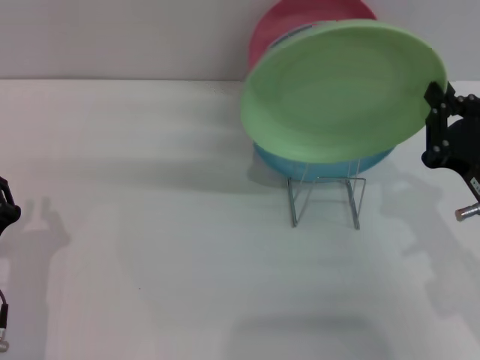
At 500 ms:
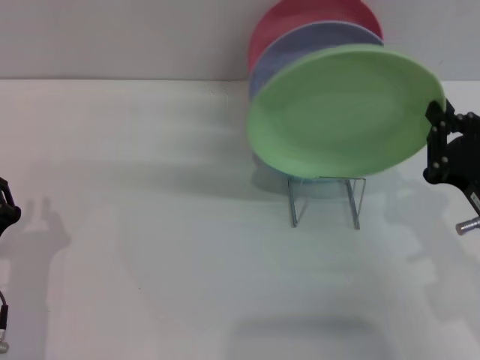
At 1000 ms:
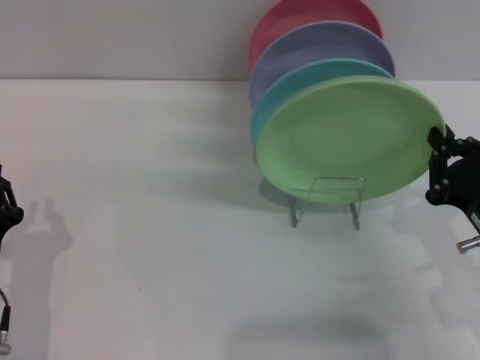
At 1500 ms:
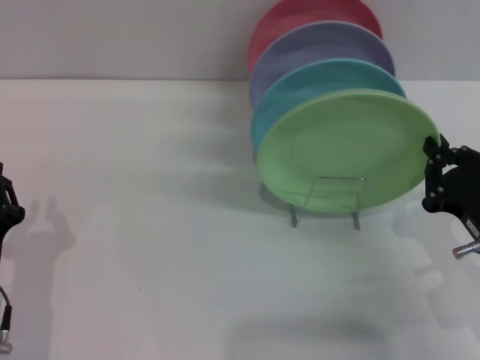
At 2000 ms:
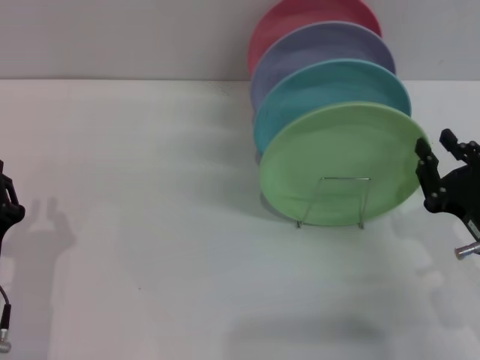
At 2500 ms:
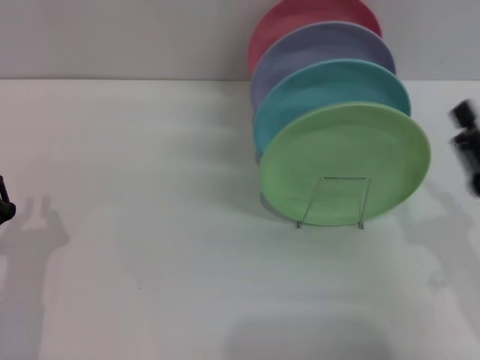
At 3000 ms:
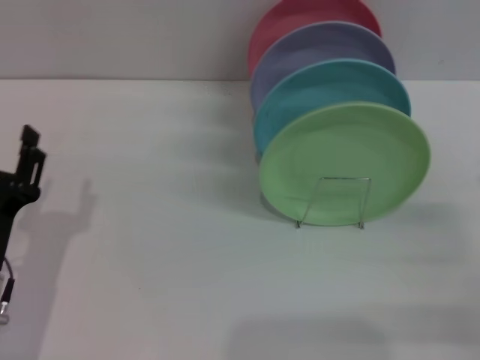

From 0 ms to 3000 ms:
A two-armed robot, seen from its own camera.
Task of the whole recording: Grip the plate with one hand, pass it to the other, then set it on the shelf.
From 0 ms to 1500 ms: There are only small adjustments of the grippers.
From 1500 ms to 3000 ms: The right gripper travels to the right by roughly 10 cm, and opens. Meanwhile the left gripper opens.

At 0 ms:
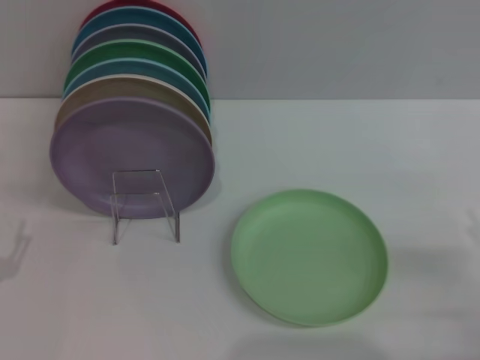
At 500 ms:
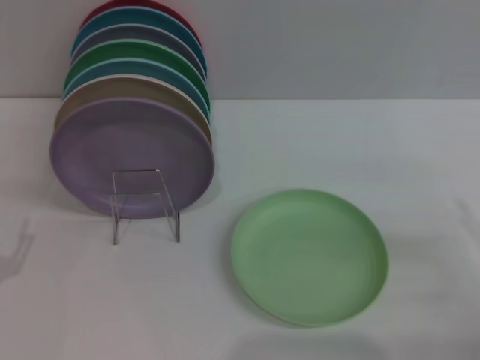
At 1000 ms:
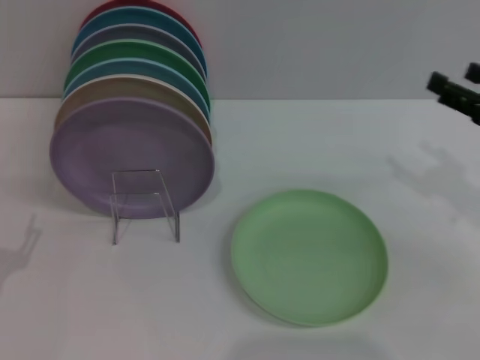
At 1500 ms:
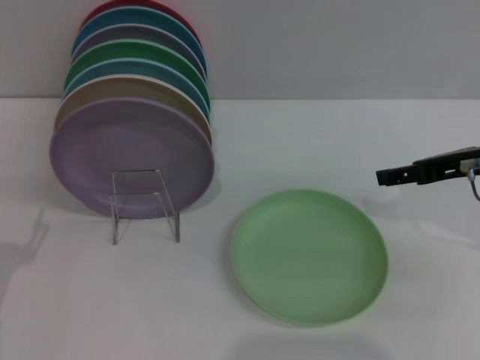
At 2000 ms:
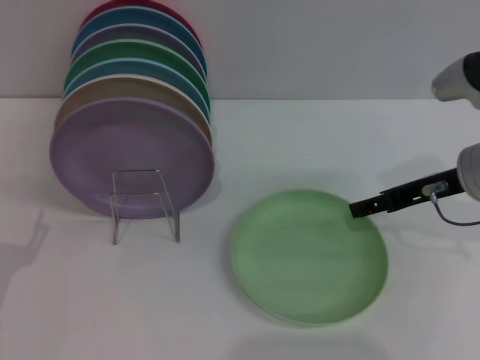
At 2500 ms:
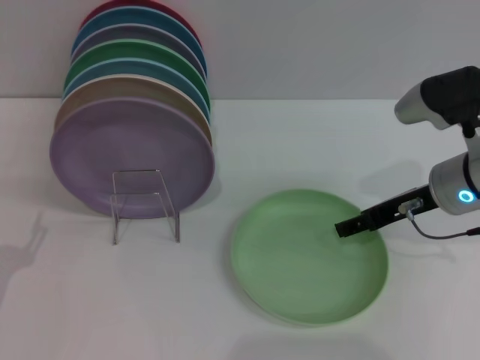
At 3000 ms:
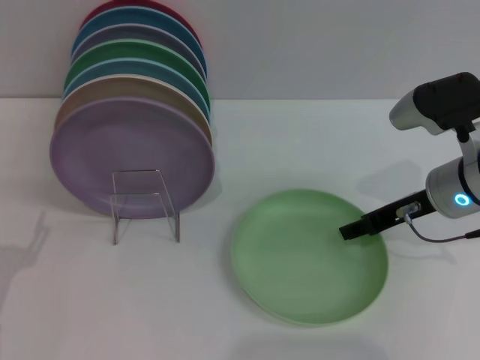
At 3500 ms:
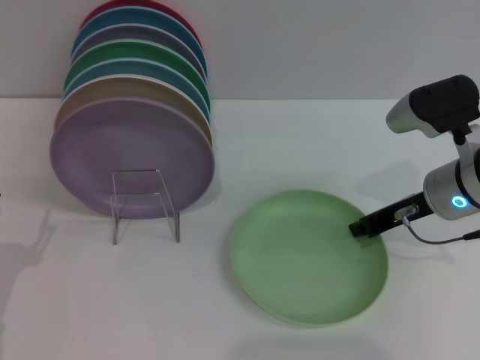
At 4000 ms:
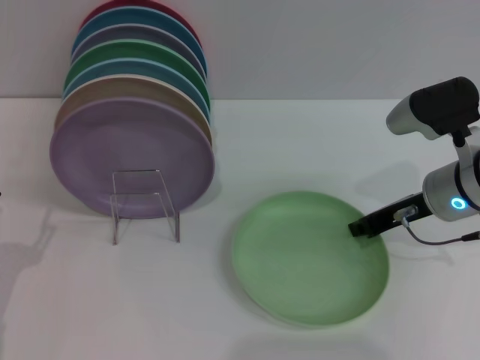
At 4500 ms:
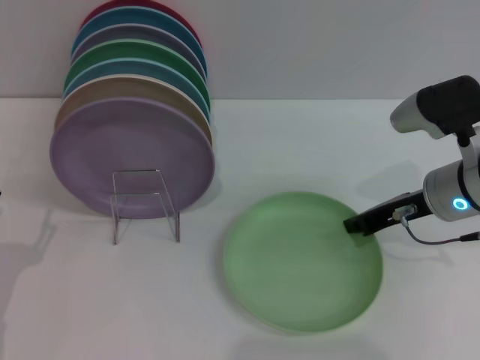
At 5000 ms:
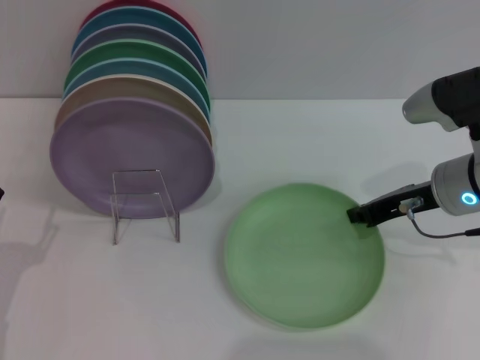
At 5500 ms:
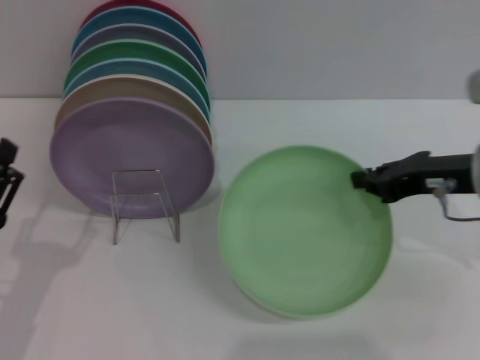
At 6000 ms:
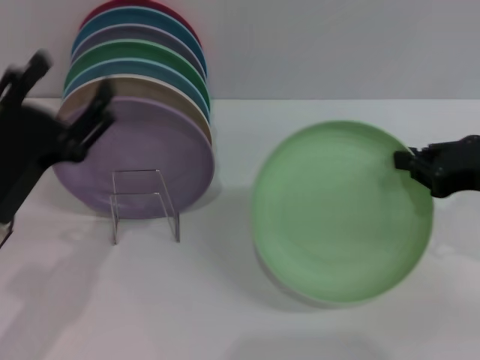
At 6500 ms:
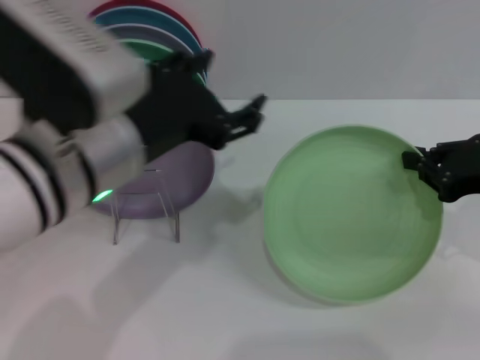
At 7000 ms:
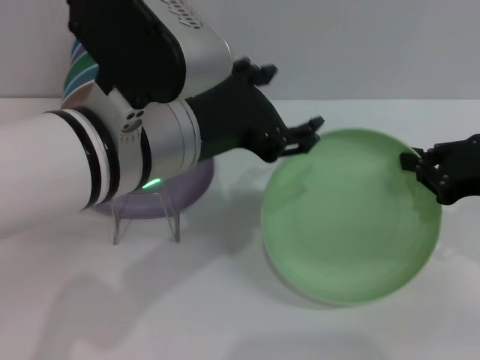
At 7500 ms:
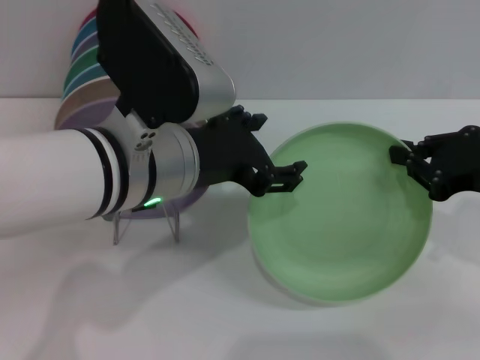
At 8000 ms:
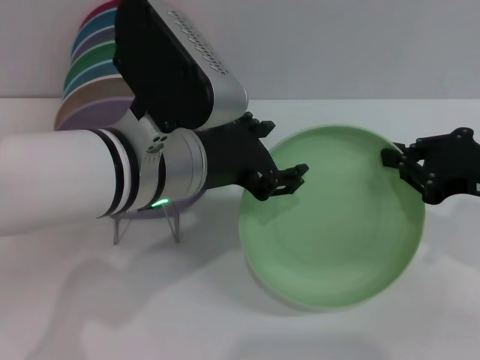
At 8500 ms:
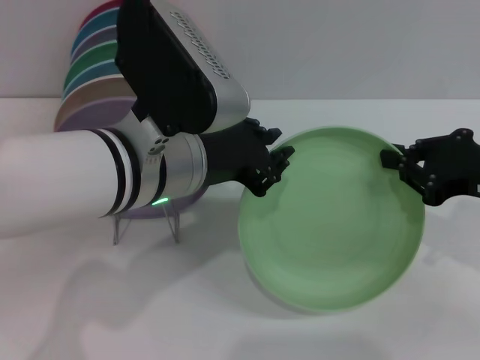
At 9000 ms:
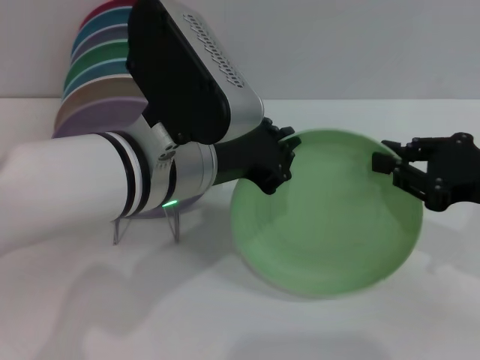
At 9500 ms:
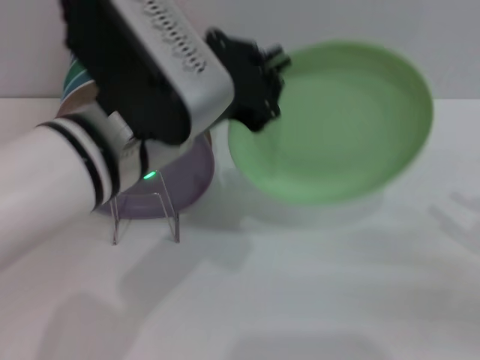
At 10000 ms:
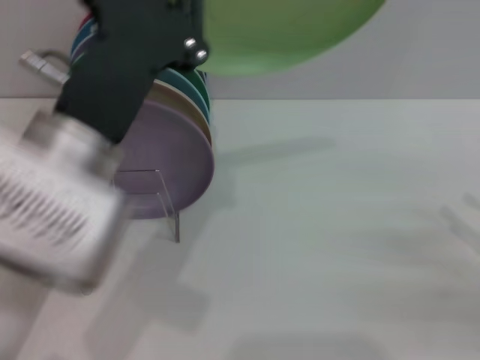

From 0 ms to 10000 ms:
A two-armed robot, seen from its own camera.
Task of the whole recording: Grip the plate with one hand, pass it to the other, then set it on the shelf.
Step, from 0 ms to 5500 ms: Pick up the plate with the right gripper.
Step, from 6000 ms to 9000 ms: Pass the plate from the right gripper to the left gripper.
From 0 ms to 2000 ms: The right gripper goes approximately 20 cm forward, to the left and upward.
From 2000 ms to 4000 ms: The right gripper closes.
From 4000 ms to 6000 ms: The right gripper travels backward, to the right and upward by about 10 cm. The left gripper goes approximately 10 cm upward and to the right.
From 6000 ms to 8000 ms: The left gripper moves to the right and upward, about 15 cm.
From 8000 ms to 10000 ms: The right gripper travels to the right, downward and backward by roughly 15 cm, and opens up; the left gripper travels backward by about 5 cm, and closes up.

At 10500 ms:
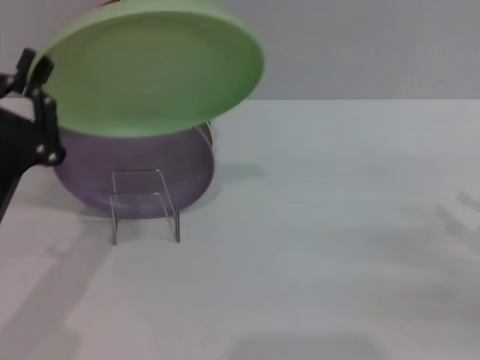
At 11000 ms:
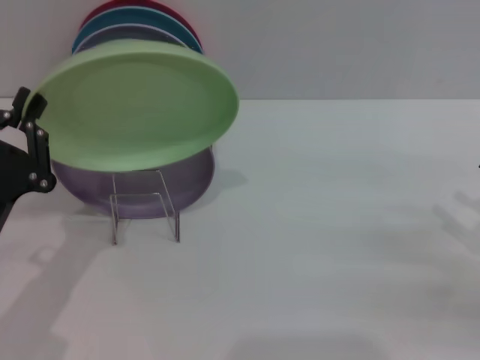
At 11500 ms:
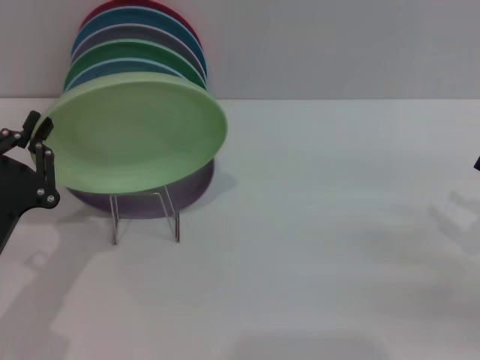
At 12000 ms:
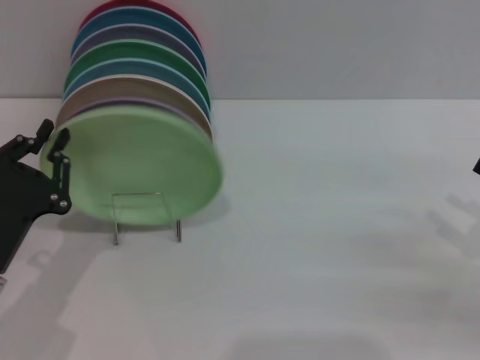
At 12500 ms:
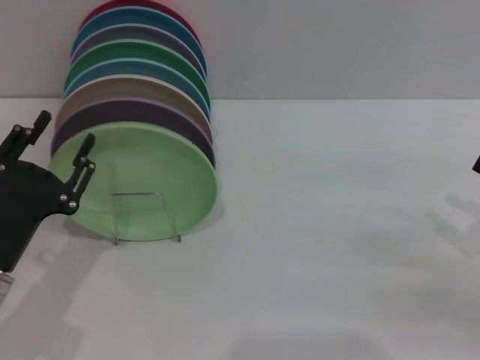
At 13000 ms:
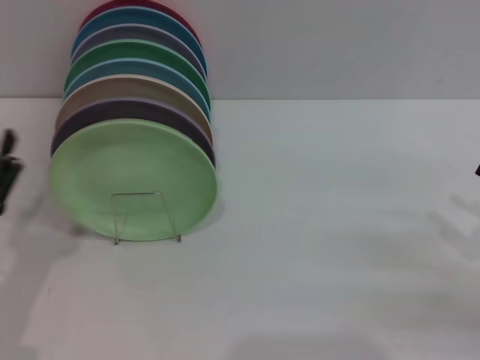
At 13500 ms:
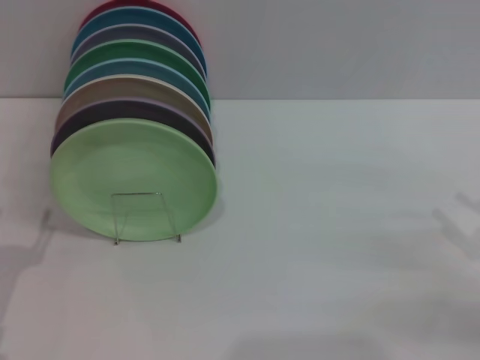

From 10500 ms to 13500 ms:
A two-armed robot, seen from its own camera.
Task of the whole recording: Grip the plate with one hand, pass it to the other, then set it on the shelf.
Step, from 10500 ms to 12500 ms: Place the plate on the shelf with the left gripper.
From 10500 ms to 12000 ms: The left gripper shifts by roughly 5 cm.
From 12000 ms to 13500 ms: The left gripper ends up about 5 cm from where it was, and opens its fingers.

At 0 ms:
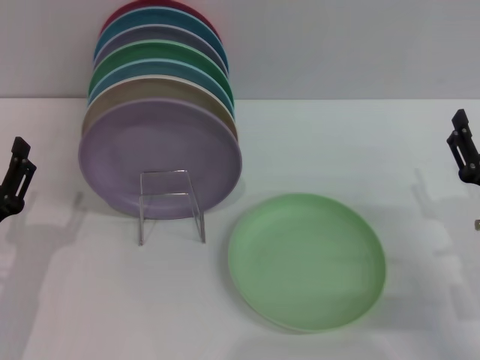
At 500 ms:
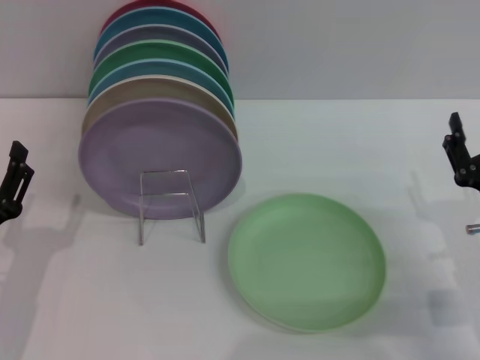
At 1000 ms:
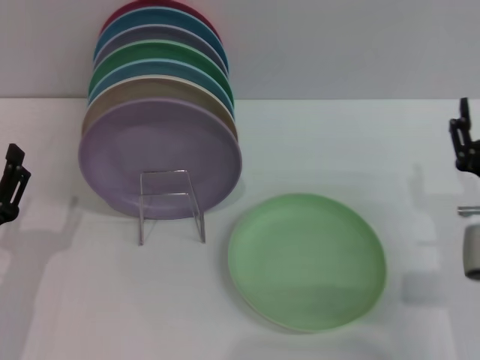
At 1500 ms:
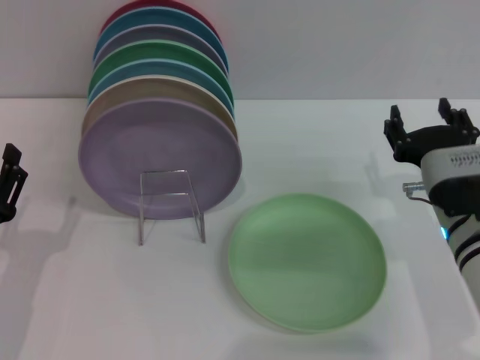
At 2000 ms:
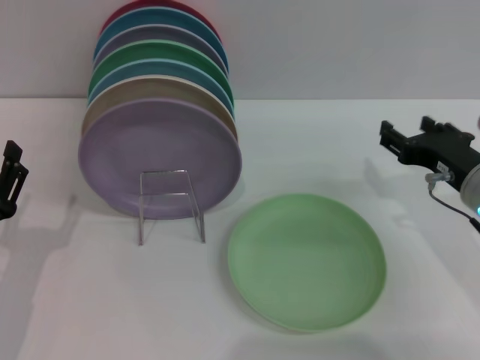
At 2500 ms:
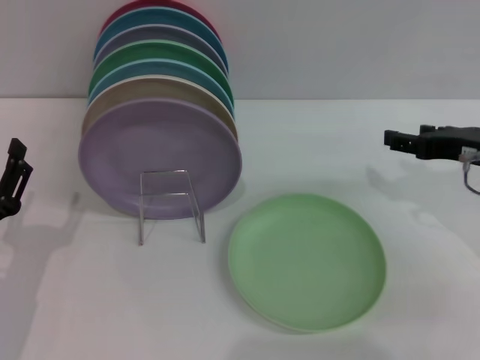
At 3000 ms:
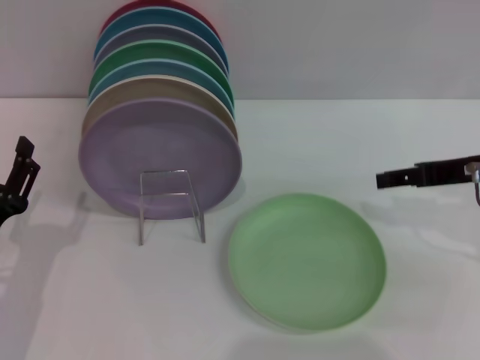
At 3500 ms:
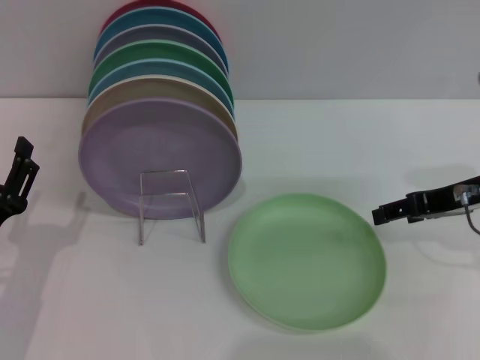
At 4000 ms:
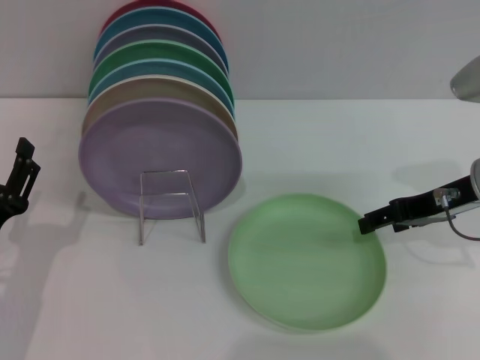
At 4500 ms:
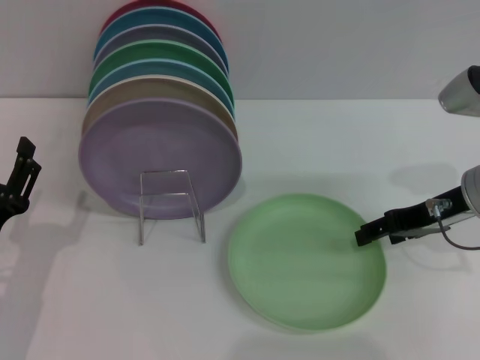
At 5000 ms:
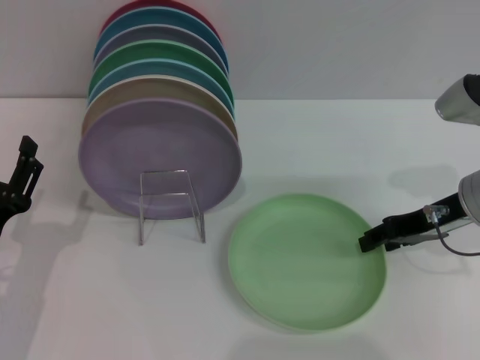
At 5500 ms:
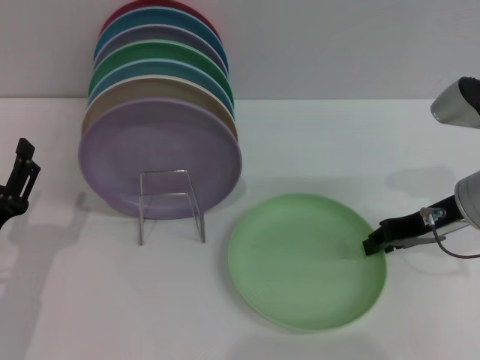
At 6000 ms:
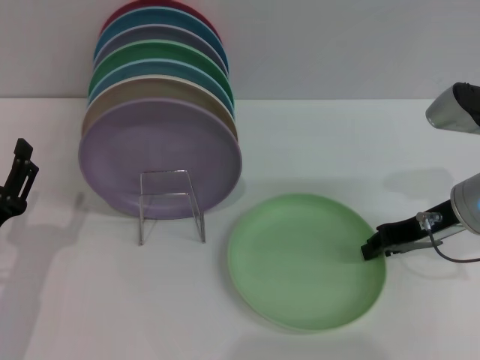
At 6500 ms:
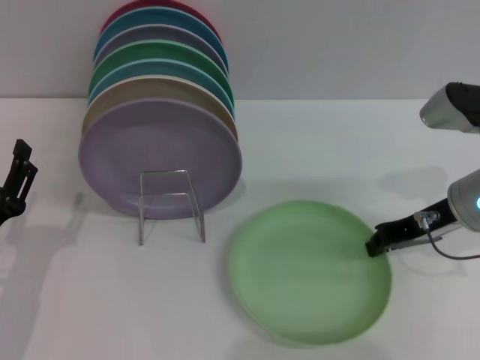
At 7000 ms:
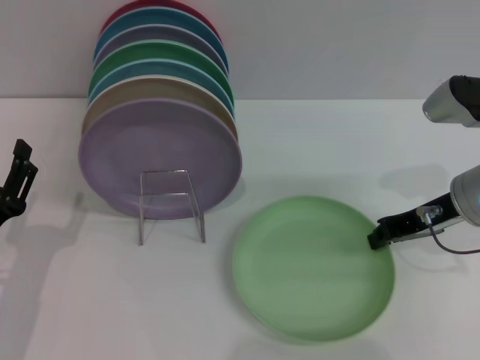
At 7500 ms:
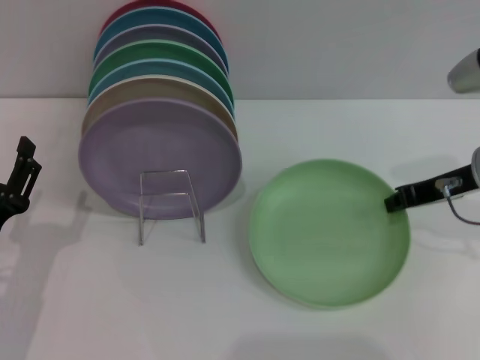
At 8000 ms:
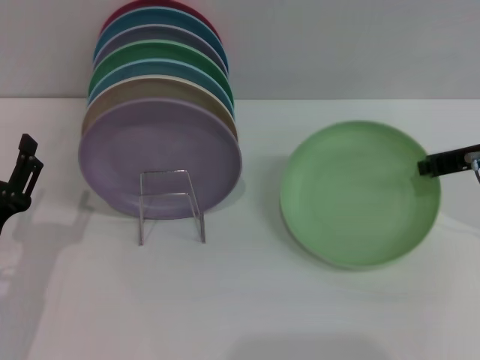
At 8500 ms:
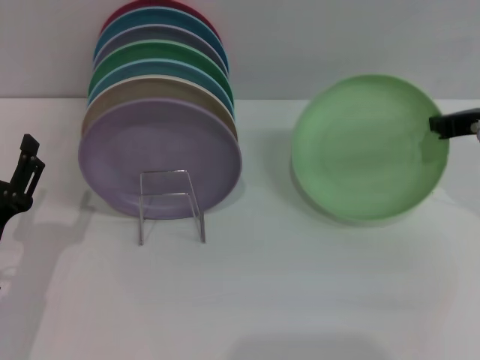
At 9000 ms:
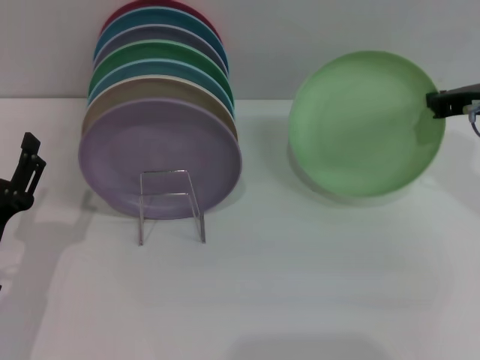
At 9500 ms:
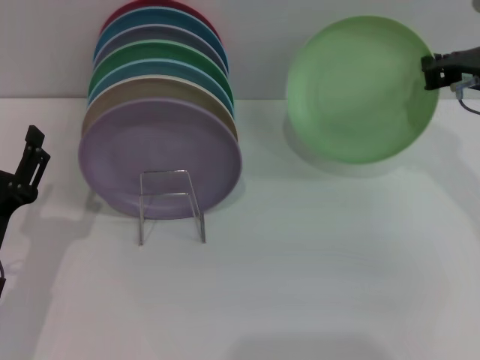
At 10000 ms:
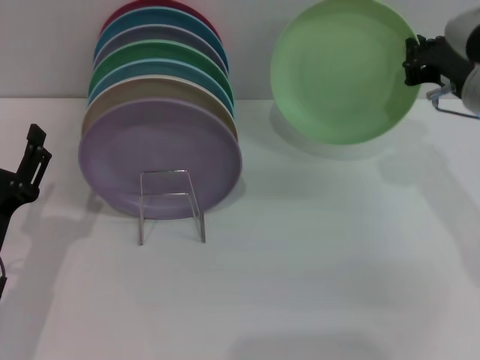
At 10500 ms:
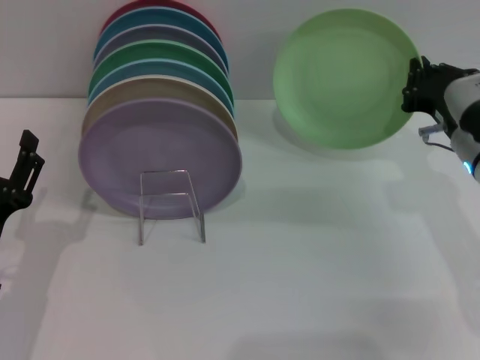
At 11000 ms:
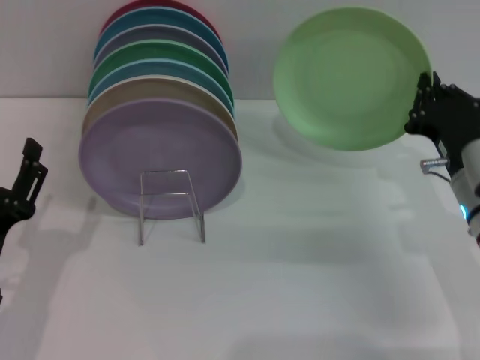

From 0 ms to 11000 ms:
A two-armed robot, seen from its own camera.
Task of the whole recording: Grip the plate with one hand, pass it to the other, then set it on the shelf.
Step, from 0 ms to 8500 ms: Pick up the plate with the right gripper.
From 0 ms to 2000 ms: The right gripper moves upward and forward, some 10 cm.
From 2000 ms to 3500 ms: The right gripper heads upward, covering some 5 cm.
From 3500 ms to 5500 ms: The right gripper closes its fingers.
From 5500 ms to 7500 ms: The grippers move only a little.
From 9000 ms to 11000 ms: The right gripper travels downward and backward by some 15 cm.
